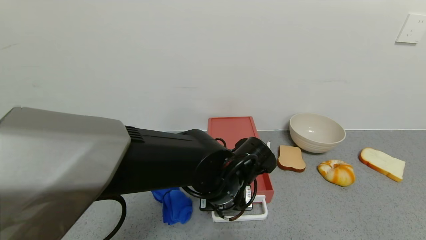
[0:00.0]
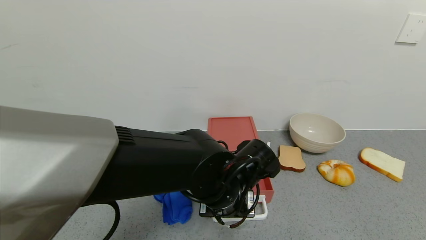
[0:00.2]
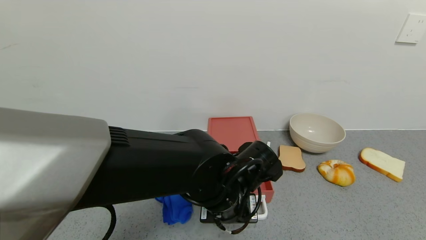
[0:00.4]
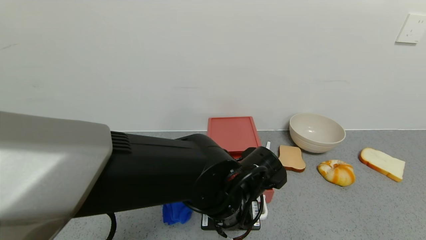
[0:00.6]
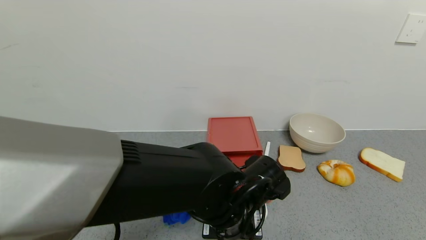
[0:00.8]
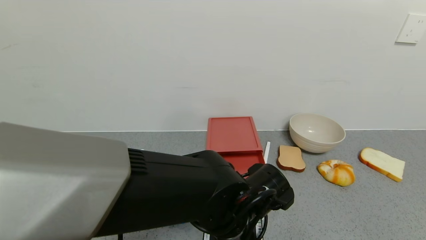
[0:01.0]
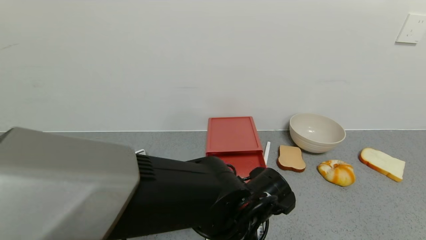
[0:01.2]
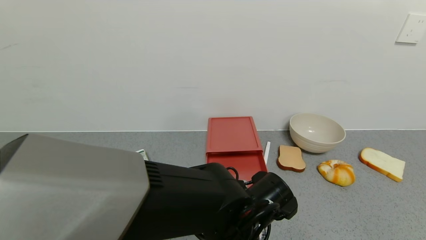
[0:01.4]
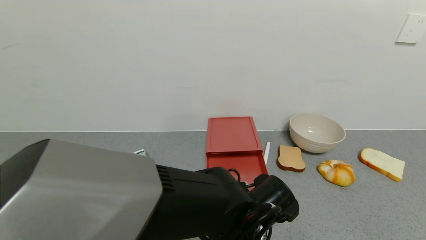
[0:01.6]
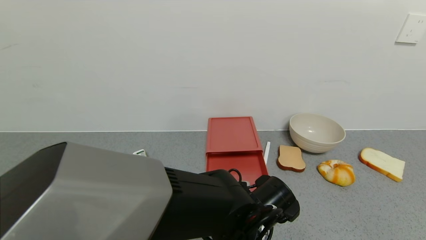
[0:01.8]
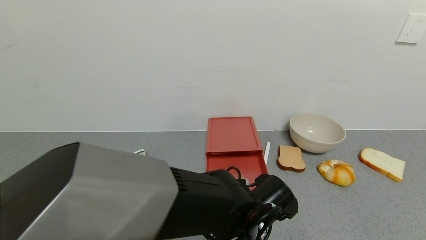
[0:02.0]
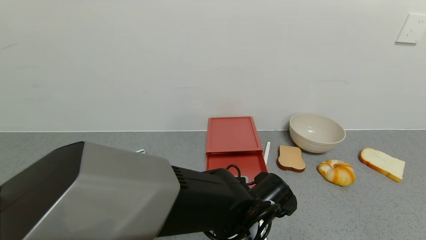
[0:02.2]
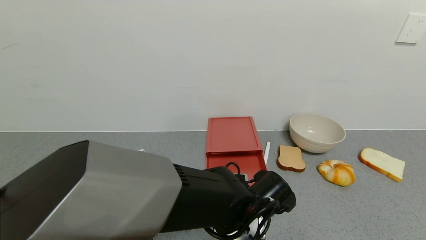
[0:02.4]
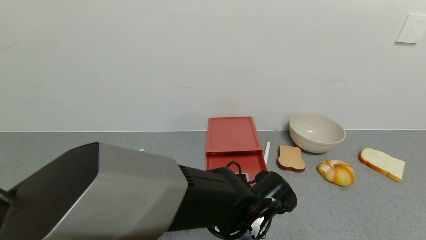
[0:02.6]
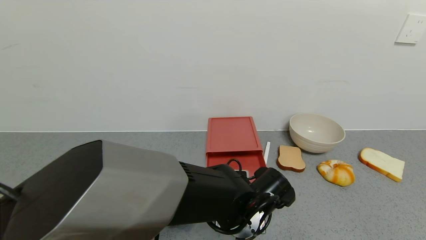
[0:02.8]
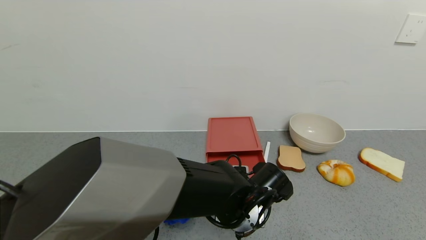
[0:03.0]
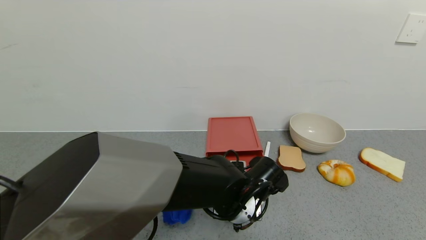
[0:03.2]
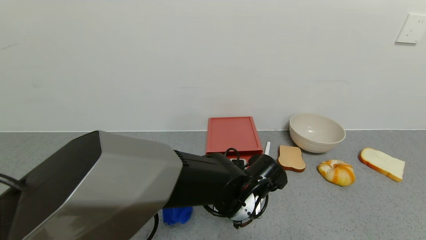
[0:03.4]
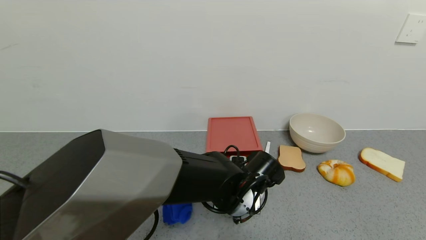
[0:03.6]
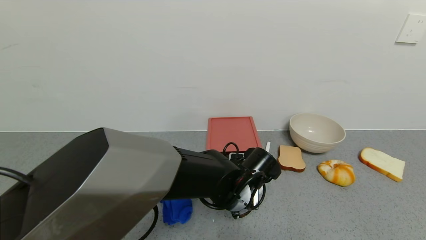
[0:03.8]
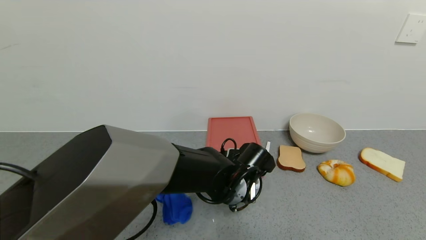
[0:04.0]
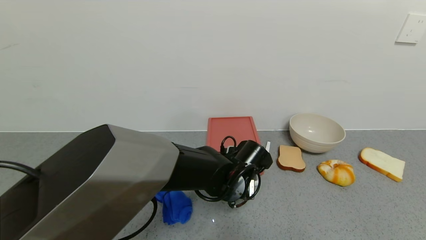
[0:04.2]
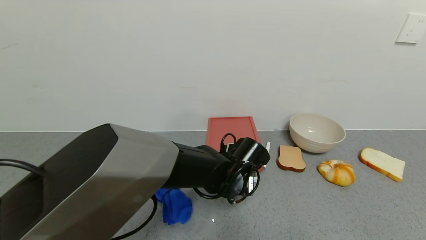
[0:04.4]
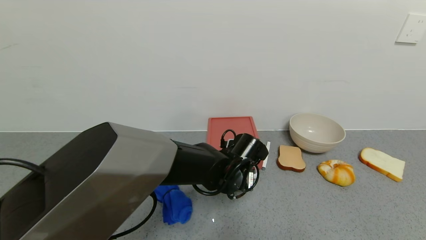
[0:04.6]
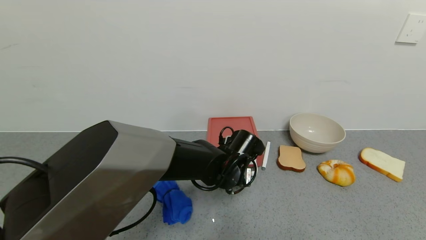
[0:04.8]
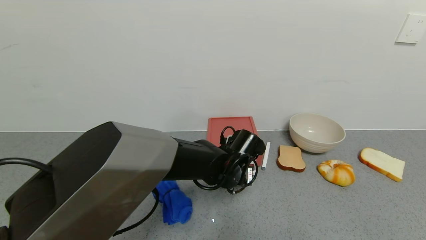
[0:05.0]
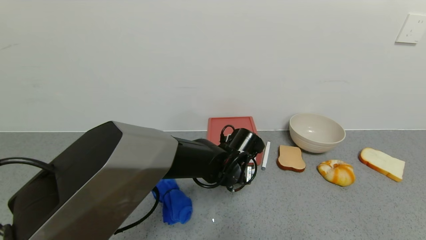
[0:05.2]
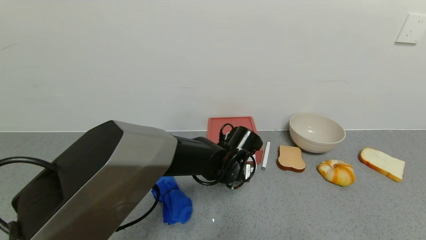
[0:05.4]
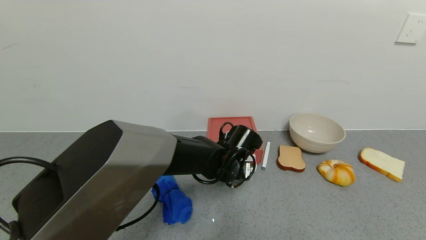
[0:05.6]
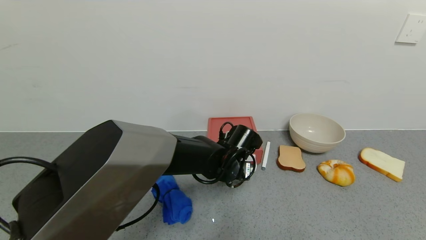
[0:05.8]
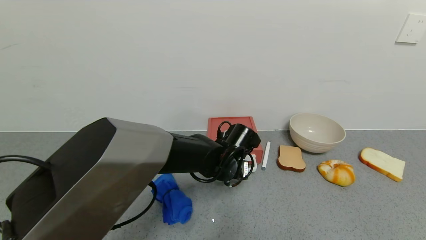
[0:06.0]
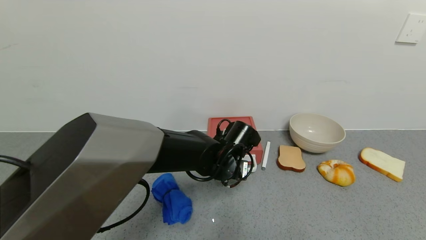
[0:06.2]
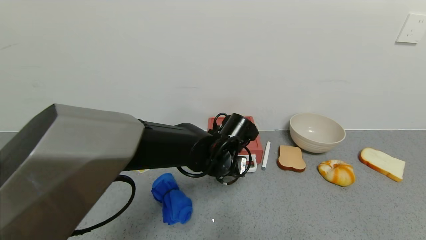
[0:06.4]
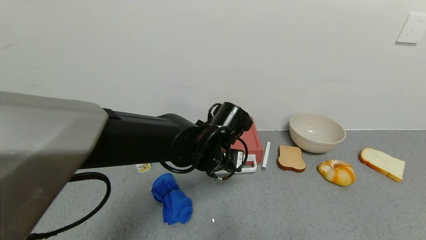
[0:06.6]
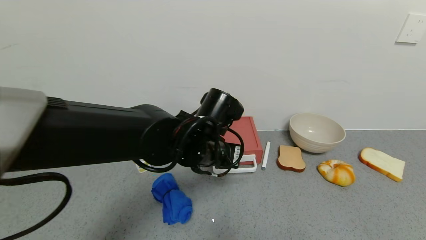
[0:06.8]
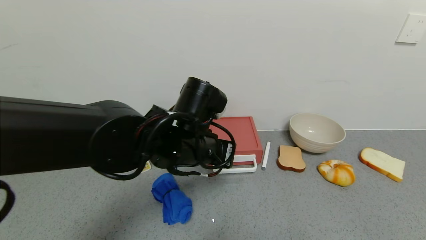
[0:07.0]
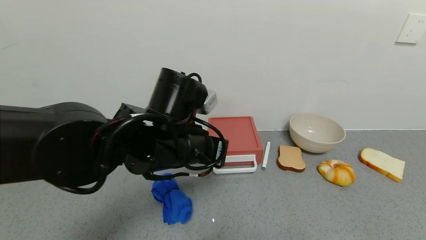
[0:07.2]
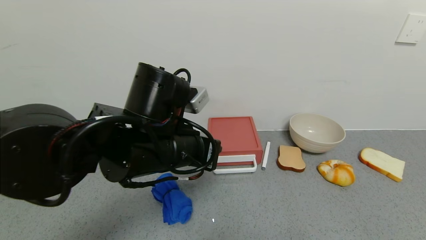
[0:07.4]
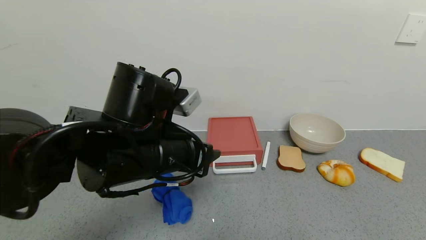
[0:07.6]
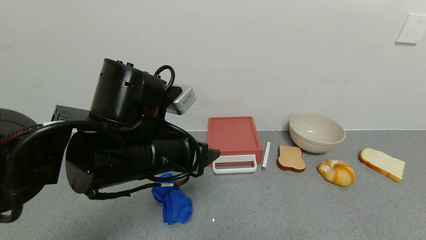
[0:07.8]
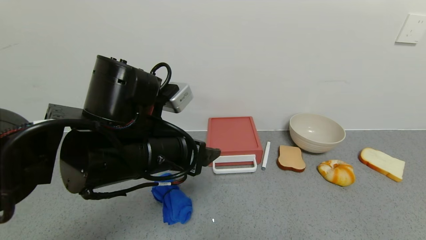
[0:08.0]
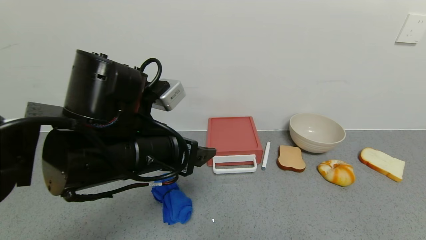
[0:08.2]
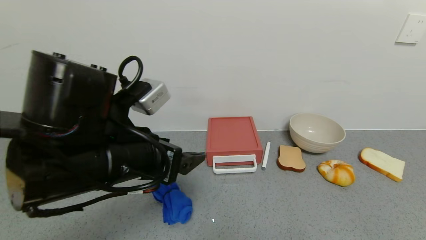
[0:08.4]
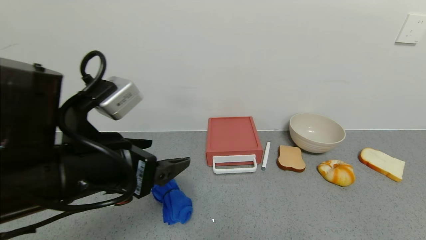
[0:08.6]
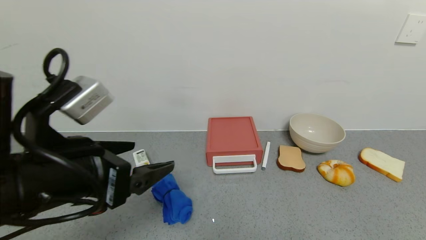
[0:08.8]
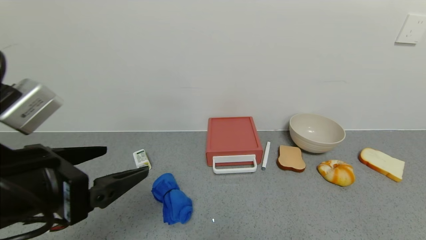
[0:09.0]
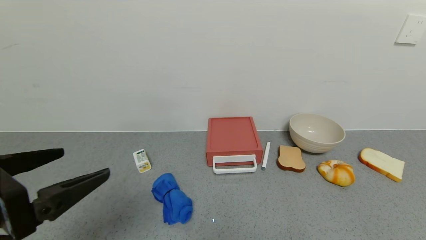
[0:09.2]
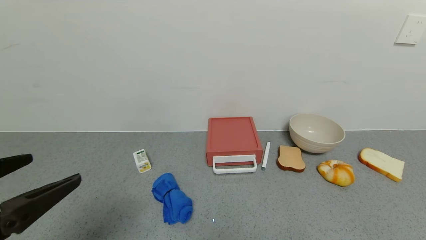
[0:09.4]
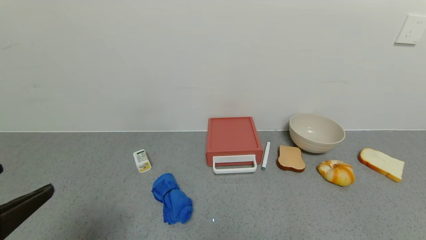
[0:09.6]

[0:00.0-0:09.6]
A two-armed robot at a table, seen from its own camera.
Task of the whole recording: use the gripper to open the drawer and close the red drawer.
Step, 0:00.0 to 0:06.8: Close the red drawer with the left gripper.
0:00.0 to 0:01.6: The left gripper shifts by roughly 5 cm.
0:01.6 to 0:03.2: The left gripper moves about 5 cm.
0:03.2 to 0:04.8: The left gripper moves forward, some 5 cm.
0:04.8 to 0:06.4: The grippers stay close to where they were, moving slightly.
0:06.4 to 0:08.0: The left gripper is displaced upward, backward and to the left by roughly 20 cm, and opens.
0:08.0 to 0:09.6: The left gripper heads to the left and backward, covering approximately 25 cm.

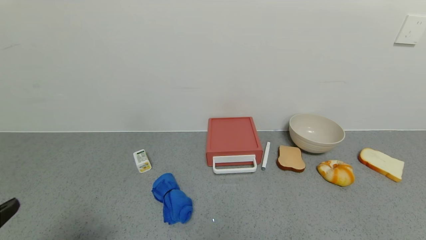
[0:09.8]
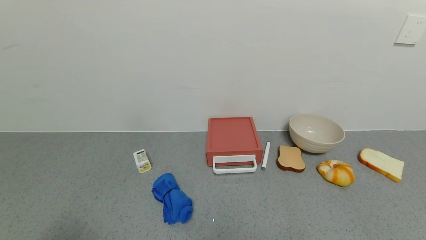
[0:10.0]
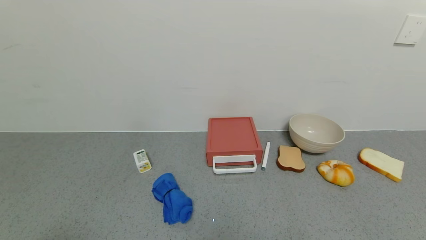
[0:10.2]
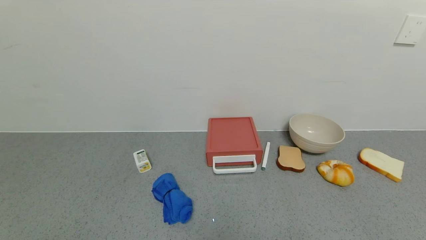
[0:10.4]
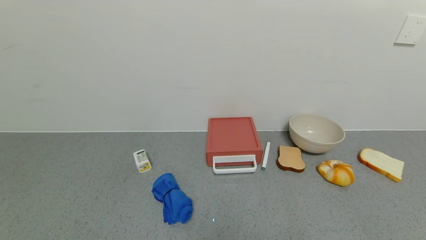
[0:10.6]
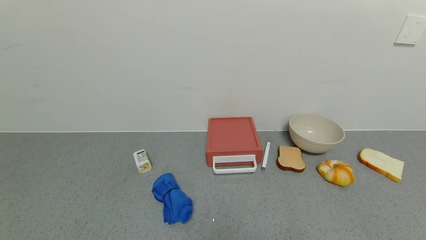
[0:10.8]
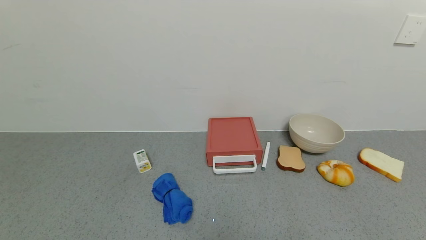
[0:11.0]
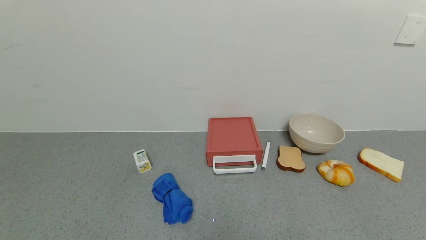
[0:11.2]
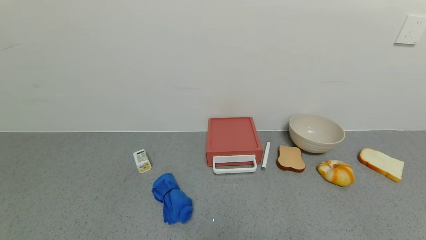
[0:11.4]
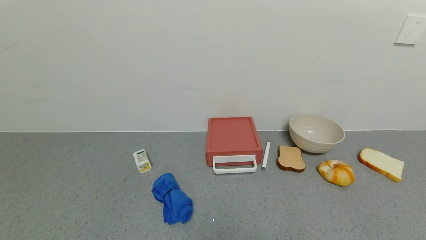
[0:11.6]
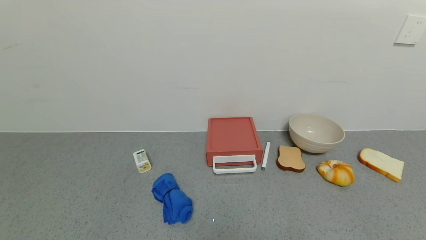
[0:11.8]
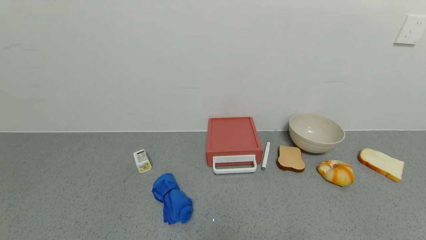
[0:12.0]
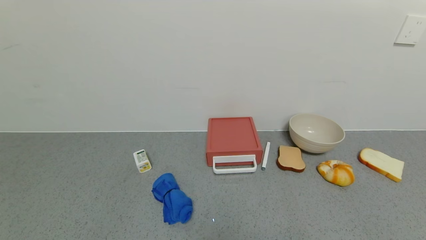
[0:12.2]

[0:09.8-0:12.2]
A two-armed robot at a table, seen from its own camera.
Task of the whole recording: use the gripper to open the drawer and close the red drawer.
0:09.8 to 0:11.0: The left gripper heads backward and downward, covering approximately 10 cm.
